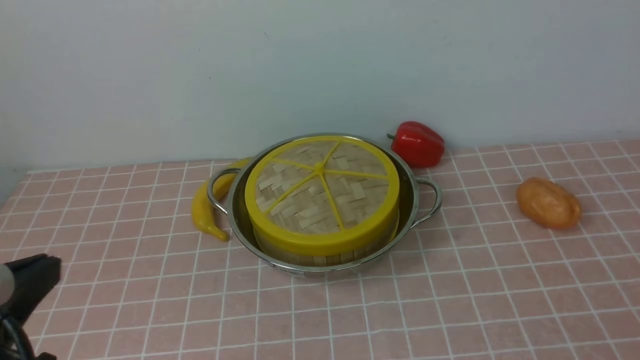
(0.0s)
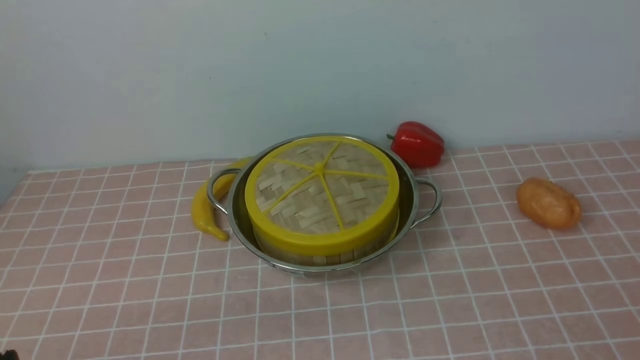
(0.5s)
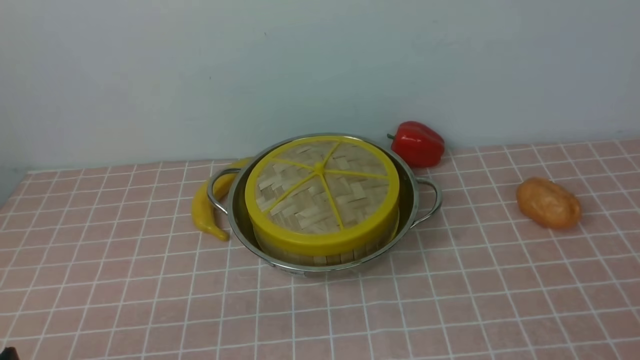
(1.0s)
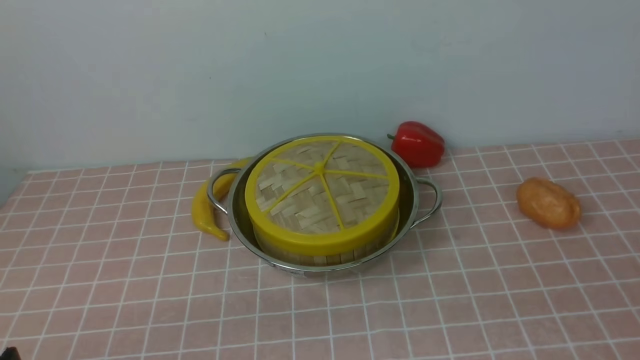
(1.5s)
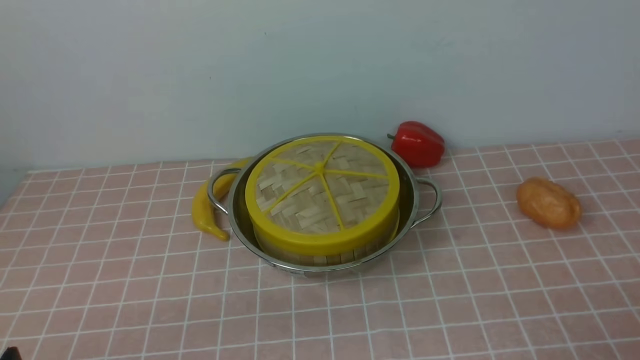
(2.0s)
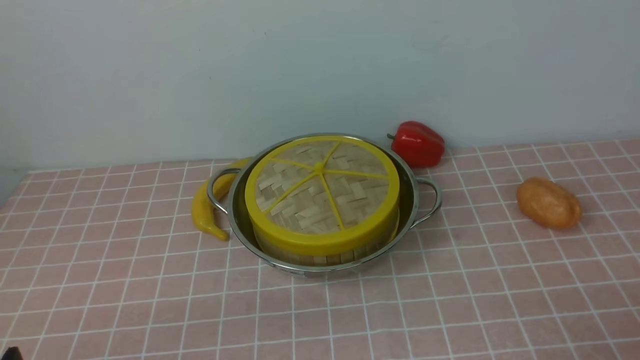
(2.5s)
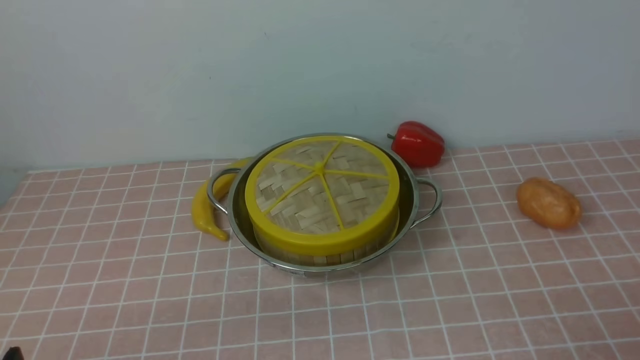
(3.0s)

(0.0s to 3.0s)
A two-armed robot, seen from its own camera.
Task of the whole recording: place the steamer in the pot on the pink tablecloth, and put the lid on the steamer.
0.0s - 1.5s: The left gripper shifts approximately 10 cm downward.
